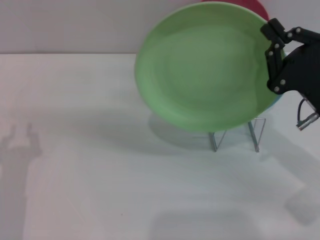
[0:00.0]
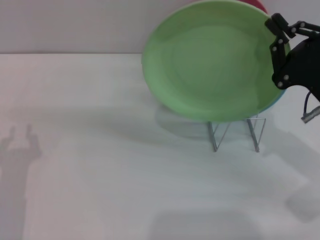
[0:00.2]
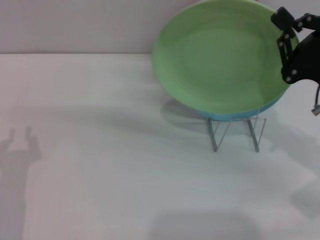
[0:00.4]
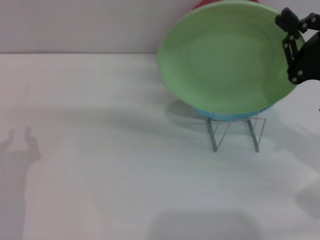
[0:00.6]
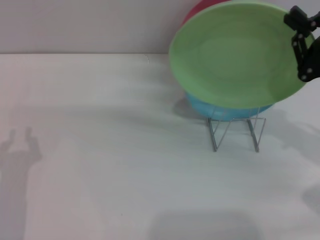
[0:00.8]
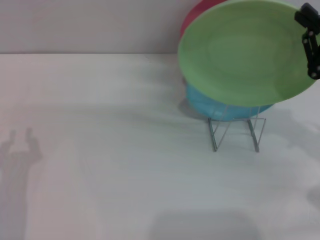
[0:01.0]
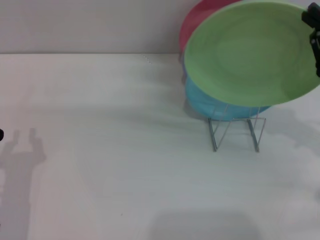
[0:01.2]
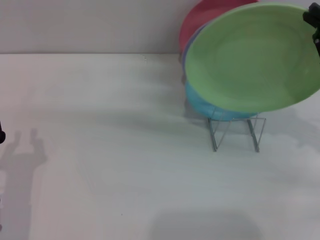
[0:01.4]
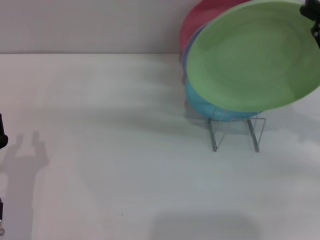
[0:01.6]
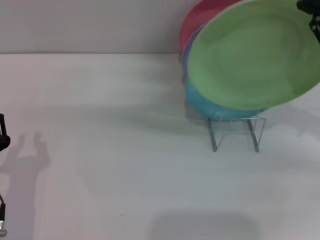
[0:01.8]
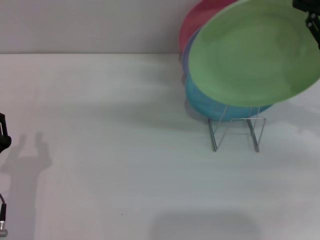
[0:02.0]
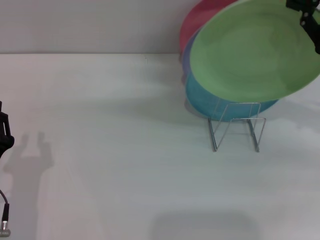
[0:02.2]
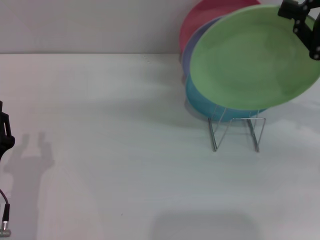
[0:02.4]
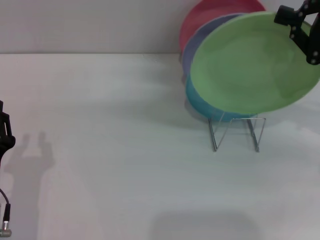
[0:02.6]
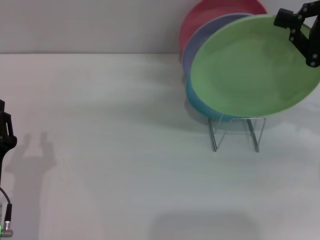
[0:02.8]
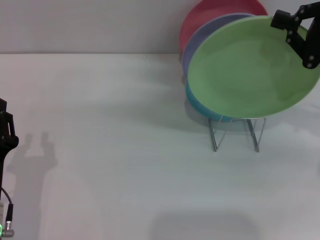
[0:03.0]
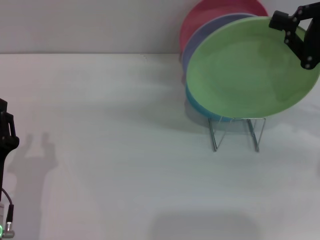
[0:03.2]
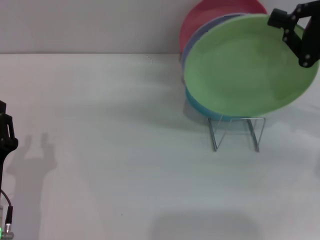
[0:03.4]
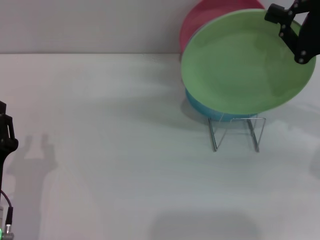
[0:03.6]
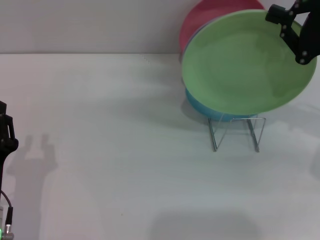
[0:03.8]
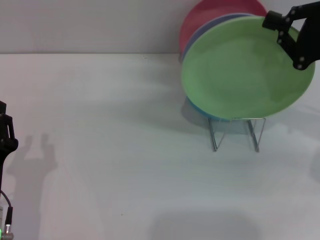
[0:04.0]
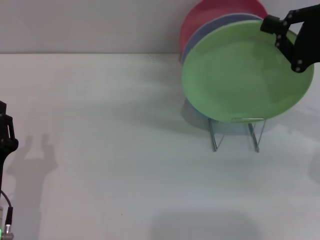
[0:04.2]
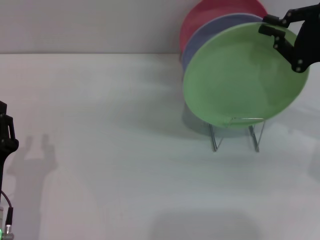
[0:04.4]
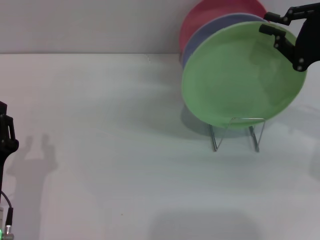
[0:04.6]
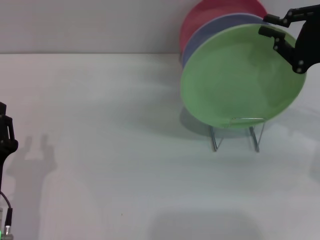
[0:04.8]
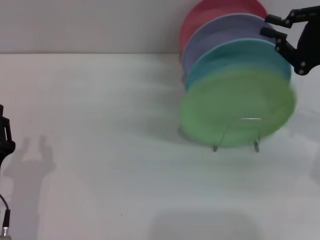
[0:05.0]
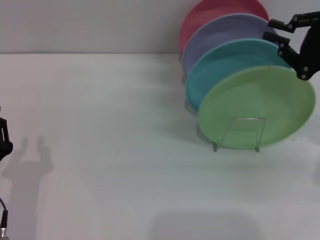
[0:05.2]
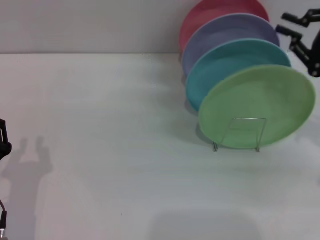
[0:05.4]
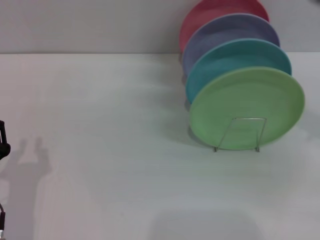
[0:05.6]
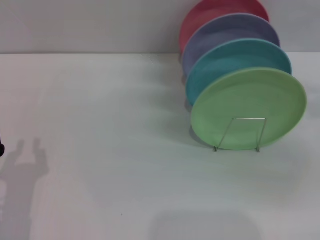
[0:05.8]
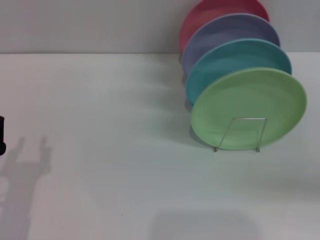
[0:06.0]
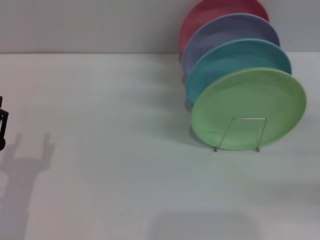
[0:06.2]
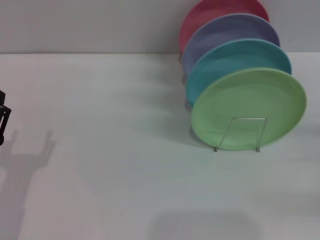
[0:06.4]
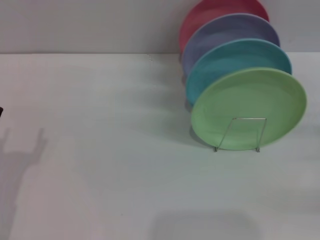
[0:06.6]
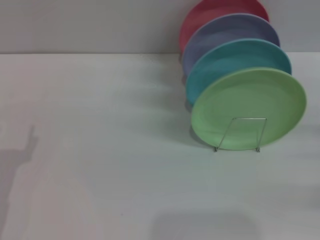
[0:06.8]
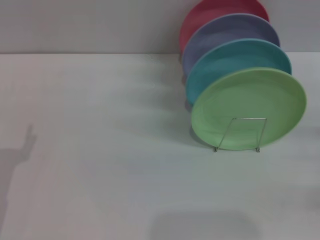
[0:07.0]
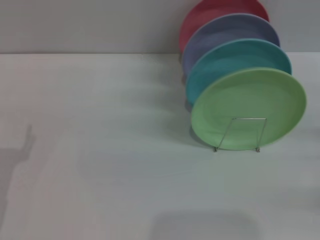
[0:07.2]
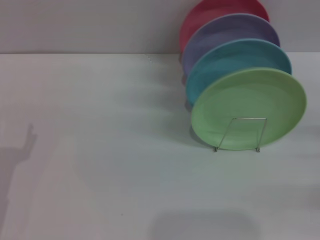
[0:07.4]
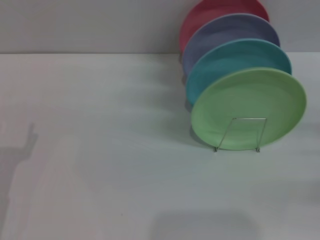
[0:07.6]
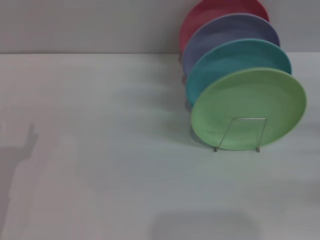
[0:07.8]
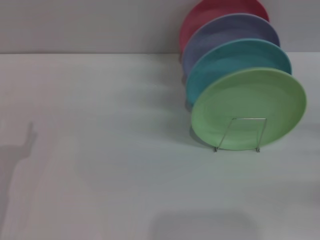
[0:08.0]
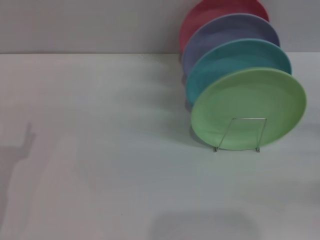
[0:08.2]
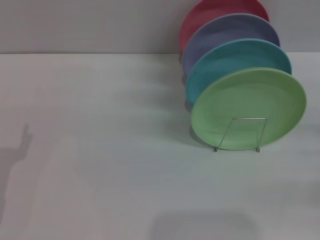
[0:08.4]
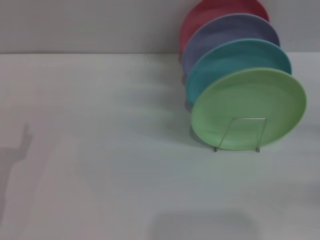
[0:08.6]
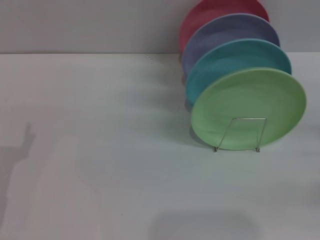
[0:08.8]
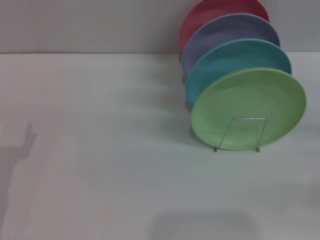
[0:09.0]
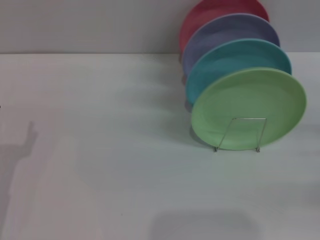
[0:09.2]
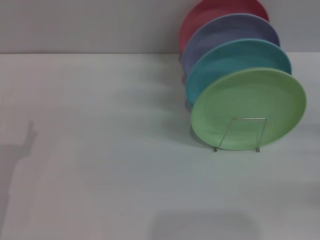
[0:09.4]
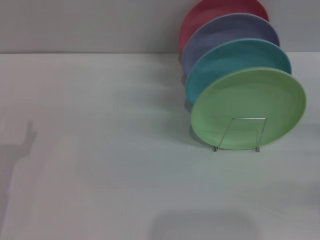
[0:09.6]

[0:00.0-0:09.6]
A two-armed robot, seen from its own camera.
Task of the whole recording: Grip the plate with one hand, pass it to the other, then set it on the shelf.
Step, 0:00.0 to 0:05.2: Place the plate on the shelf with the right gripper.
0:00.0 to 0:01.6: The right gripper goes about 10 cm to the right and upward.
0:01.6 to 0:04.8: There are only small adjustments of the grippers.
0:04.8 to 0:06.4: The right gripper heads to the right, backward and downward, covering some 15 cm, and opens up, while the left gripper opens up.
0:08.0 to 0:09.6: Both grippers stay about where they are.
